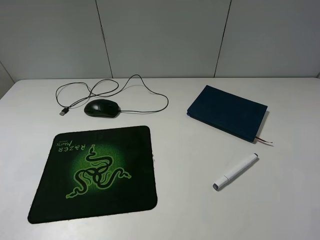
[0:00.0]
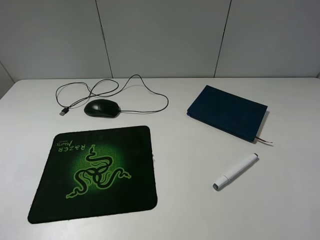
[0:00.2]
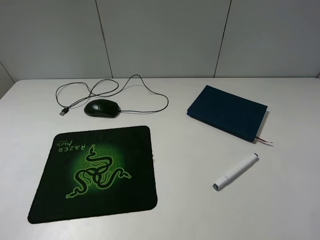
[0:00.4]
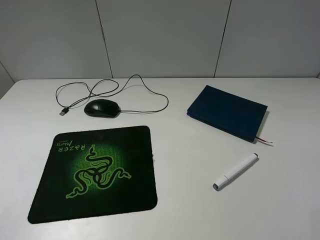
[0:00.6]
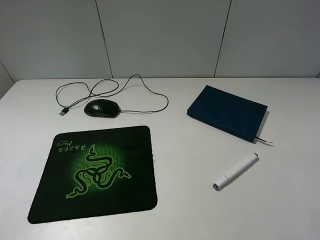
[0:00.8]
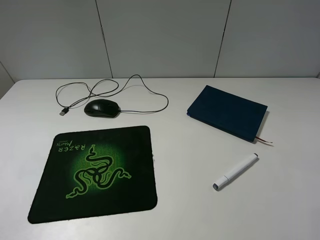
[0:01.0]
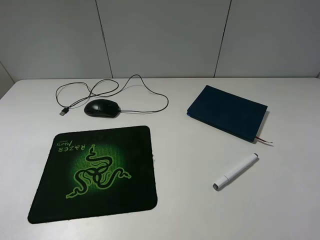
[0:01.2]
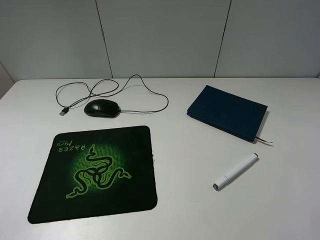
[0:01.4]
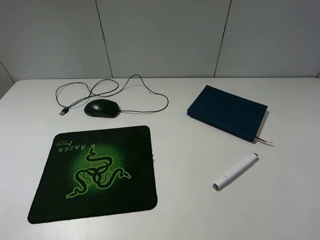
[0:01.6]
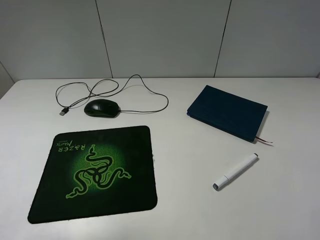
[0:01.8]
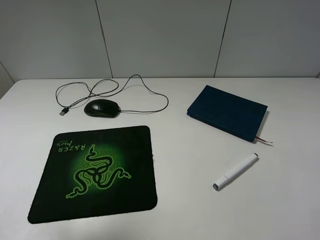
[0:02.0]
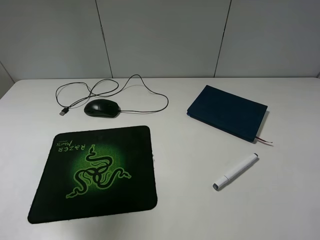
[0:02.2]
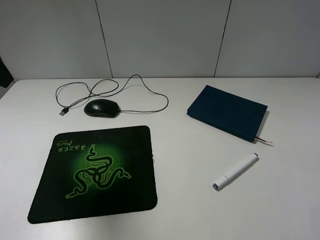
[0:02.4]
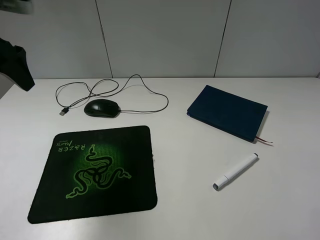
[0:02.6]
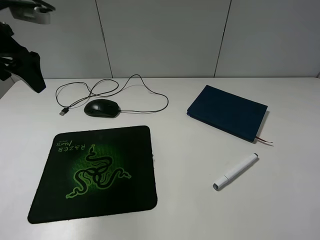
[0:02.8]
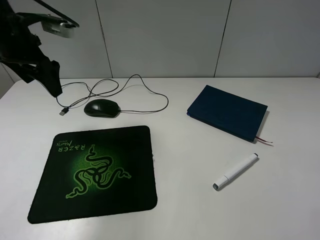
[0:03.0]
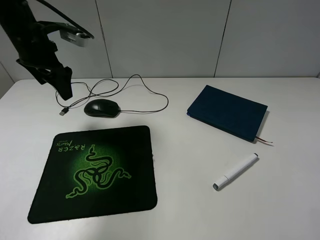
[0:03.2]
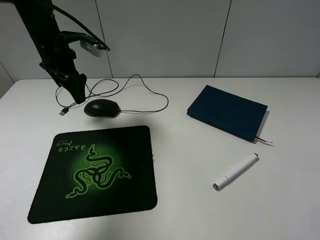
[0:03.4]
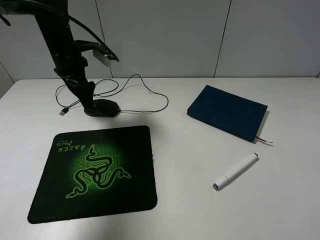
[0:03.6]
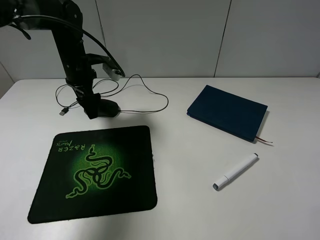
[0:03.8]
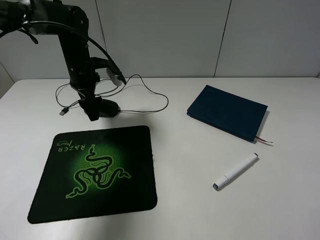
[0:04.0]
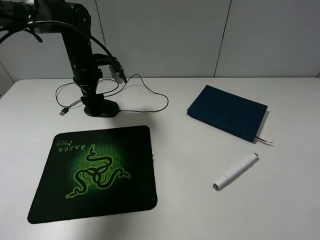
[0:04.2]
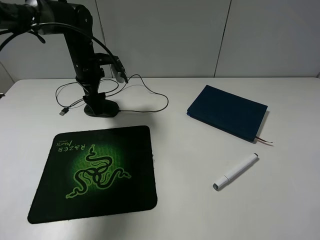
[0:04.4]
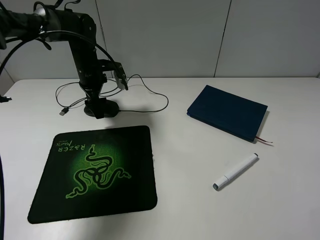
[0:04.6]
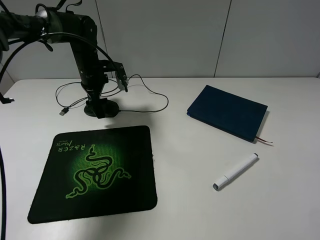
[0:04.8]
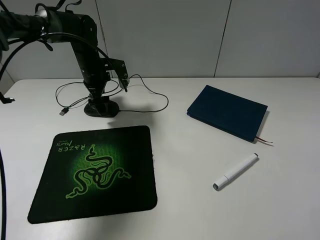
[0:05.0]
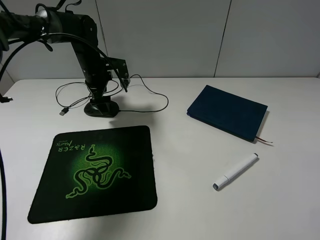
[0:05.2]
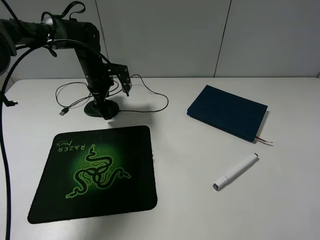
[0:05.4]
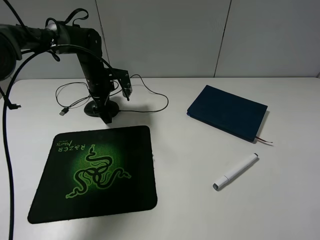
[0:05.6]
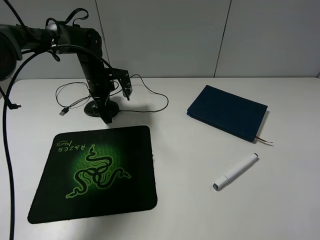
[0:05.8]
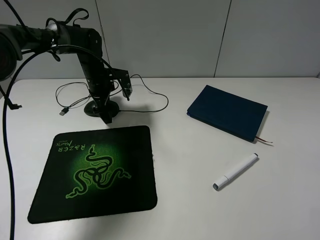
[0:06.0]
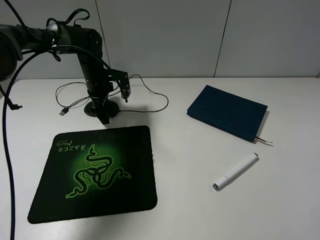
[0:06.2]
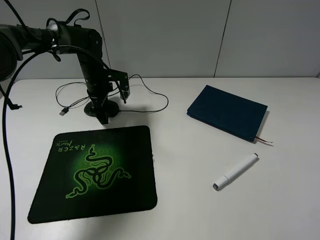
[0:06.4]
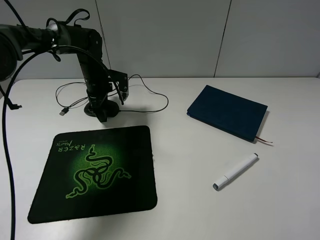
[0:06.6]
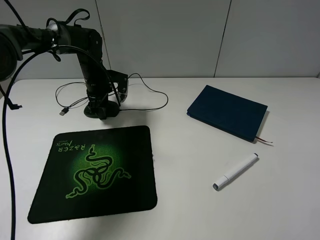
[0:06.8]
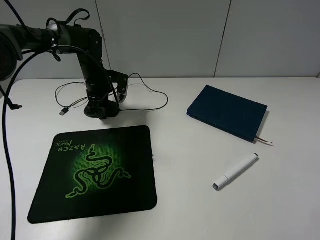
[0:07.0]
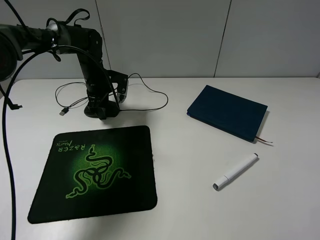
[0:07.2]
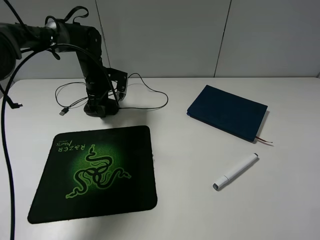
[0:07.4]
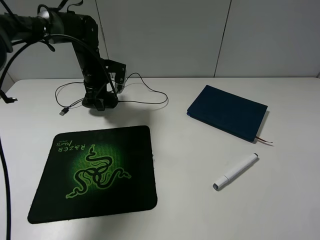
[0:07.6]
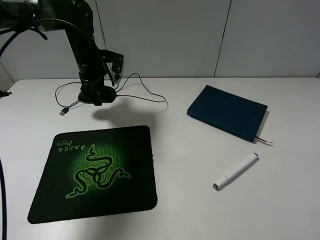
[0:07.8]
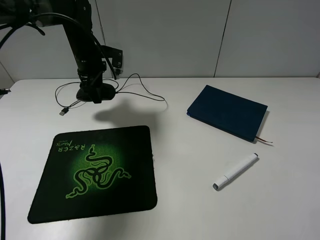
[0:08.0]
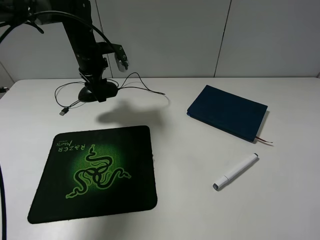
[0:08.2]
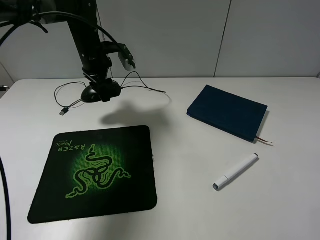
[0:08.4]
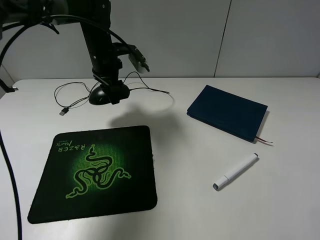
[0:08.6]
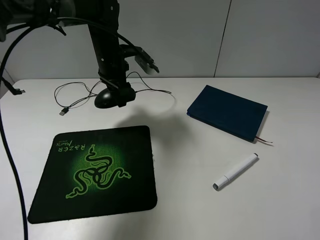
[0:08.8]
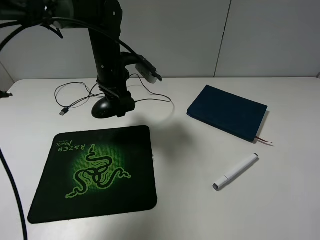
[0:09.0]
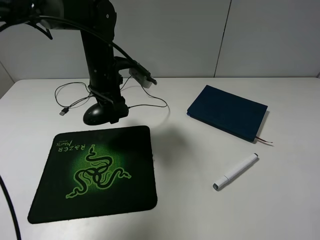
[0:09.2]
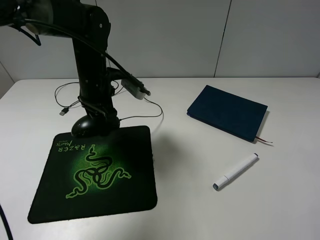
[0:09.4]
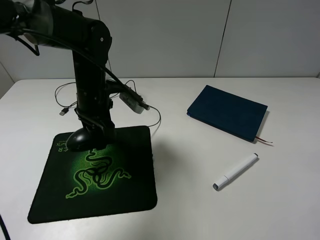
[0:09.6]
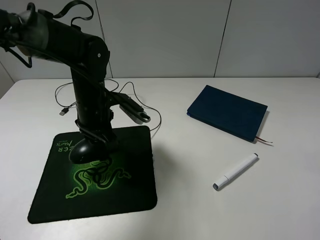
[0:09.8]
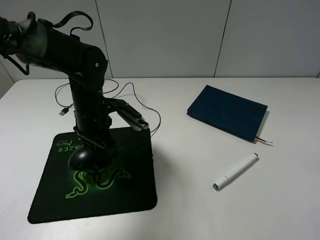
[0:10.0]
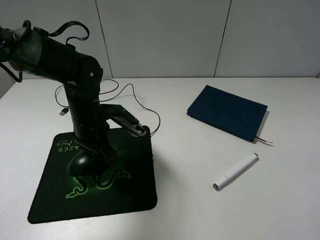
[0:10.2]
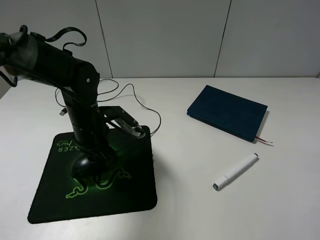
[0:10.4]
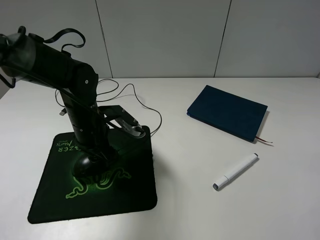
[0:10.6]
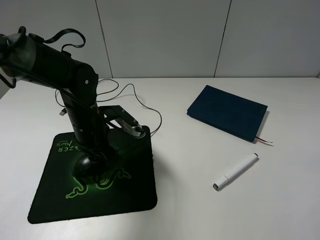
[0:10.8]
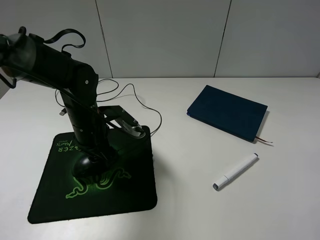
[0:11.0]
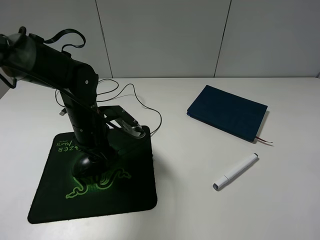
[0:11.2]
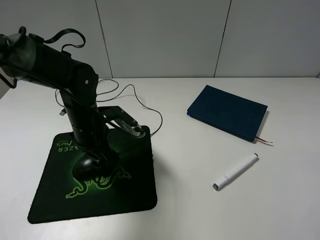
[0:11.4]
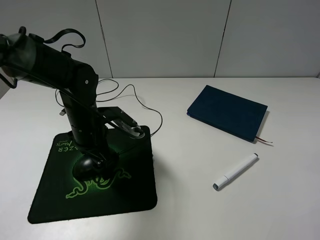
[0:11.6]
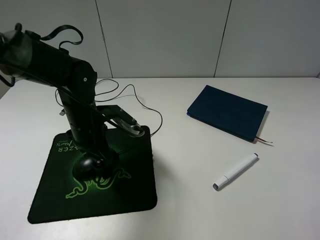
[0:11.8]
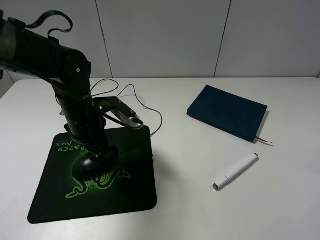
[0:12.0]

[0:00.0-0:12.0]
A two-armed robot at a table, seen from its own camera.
Step, 0:00.0 to 0:07.2: Grasp the mouse with the left gripper.
Step, 0:07.4 to 0:12.0: Place the mouse on the mouse pad with the left gripper.
0:01.6 to 0:03.0: The left gripper goes roughly 30 cm forward.
0:03.0 to 0:04.4: The left gripper goes about 15 cm downward, forward and to the right.
0:04.4 to 0:06.0: The left gripper is displaced downward by about 5 cm.
0:06.0 to 0:07.6: The left gripper closes its fingers.
0:07.6 to 0:09.0: The left gripper shifts some 10 cm backward and to the right.
0:09.0 to 0:10.4: The left gripper heads backward and downward, covering about 15 cm.
0:10.4 to 0:12.0: The left gripper opens.

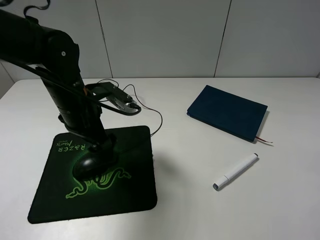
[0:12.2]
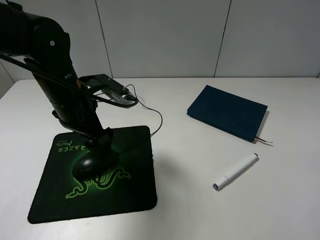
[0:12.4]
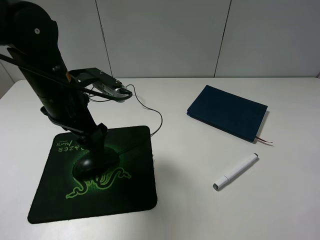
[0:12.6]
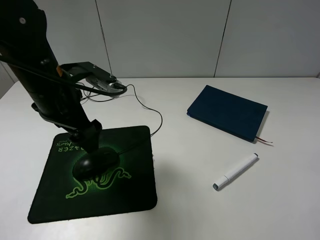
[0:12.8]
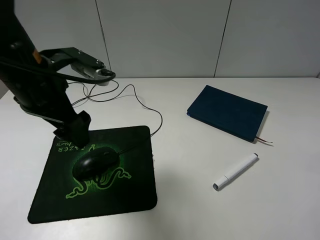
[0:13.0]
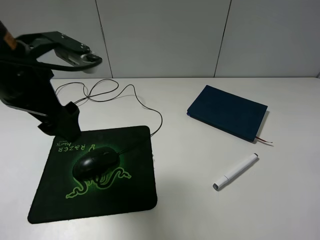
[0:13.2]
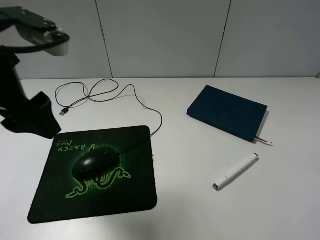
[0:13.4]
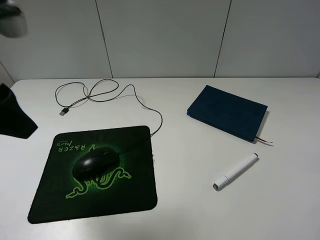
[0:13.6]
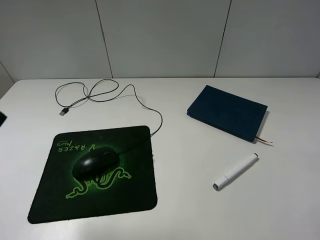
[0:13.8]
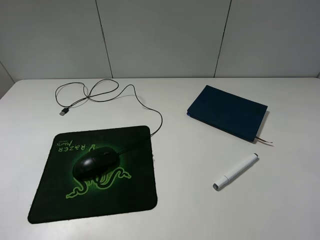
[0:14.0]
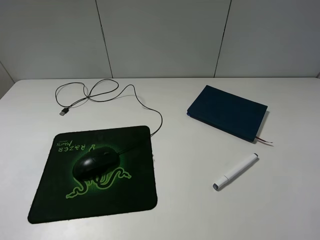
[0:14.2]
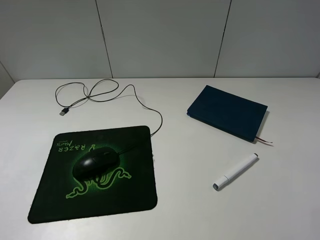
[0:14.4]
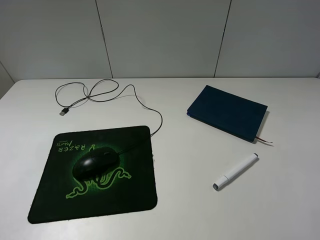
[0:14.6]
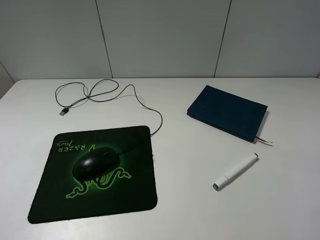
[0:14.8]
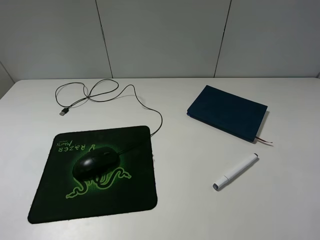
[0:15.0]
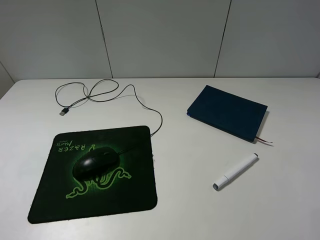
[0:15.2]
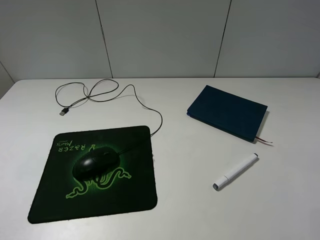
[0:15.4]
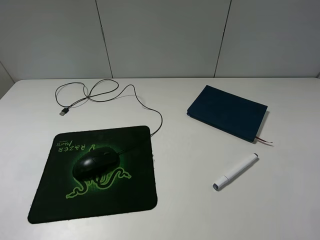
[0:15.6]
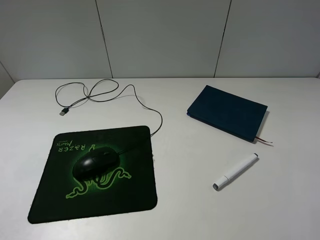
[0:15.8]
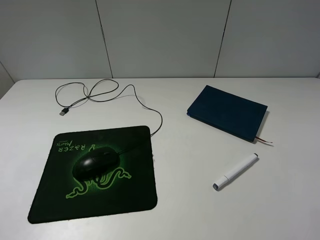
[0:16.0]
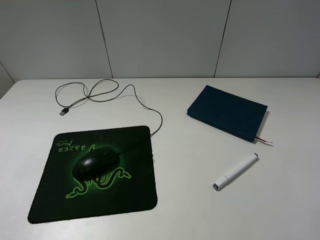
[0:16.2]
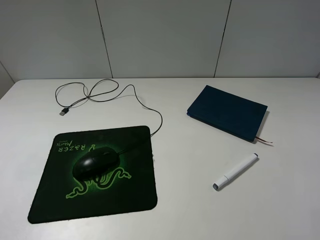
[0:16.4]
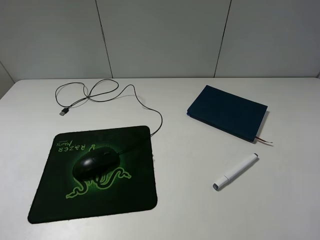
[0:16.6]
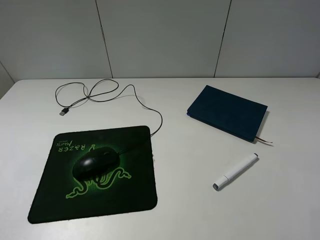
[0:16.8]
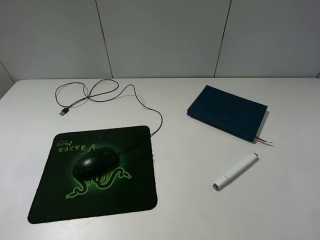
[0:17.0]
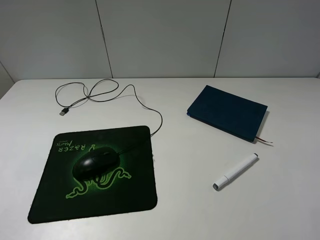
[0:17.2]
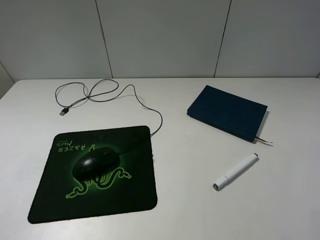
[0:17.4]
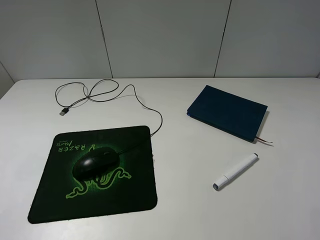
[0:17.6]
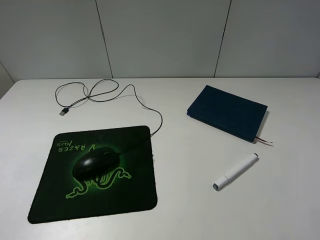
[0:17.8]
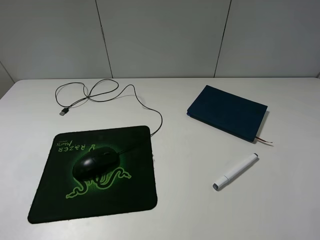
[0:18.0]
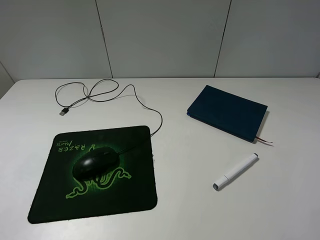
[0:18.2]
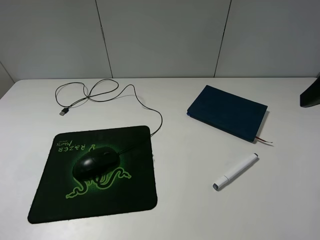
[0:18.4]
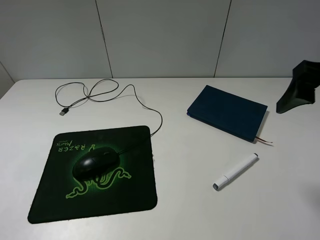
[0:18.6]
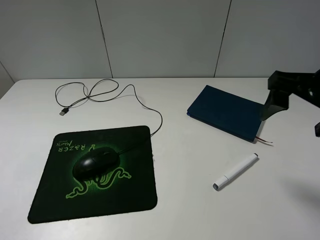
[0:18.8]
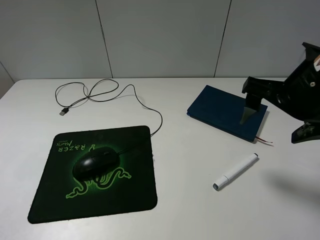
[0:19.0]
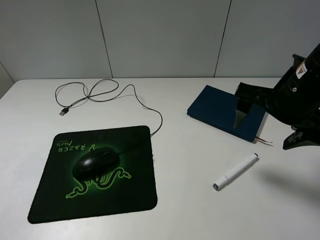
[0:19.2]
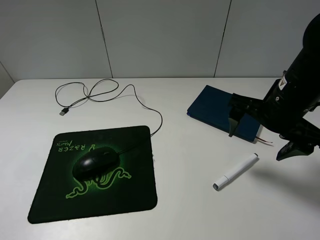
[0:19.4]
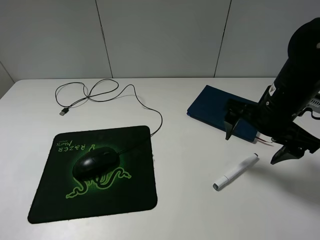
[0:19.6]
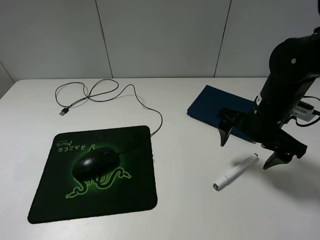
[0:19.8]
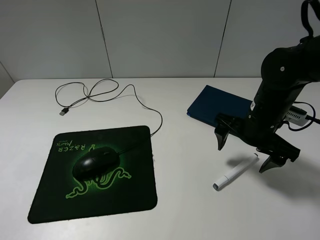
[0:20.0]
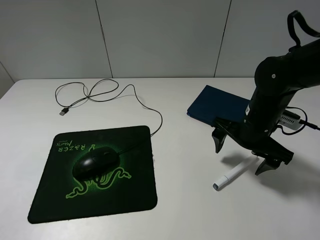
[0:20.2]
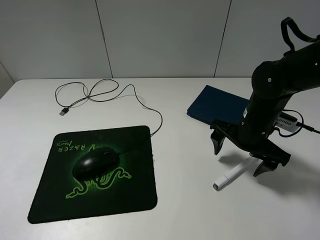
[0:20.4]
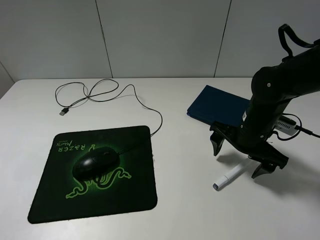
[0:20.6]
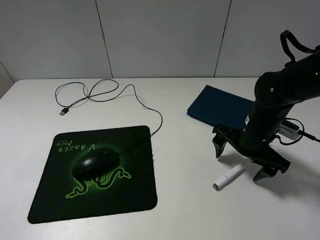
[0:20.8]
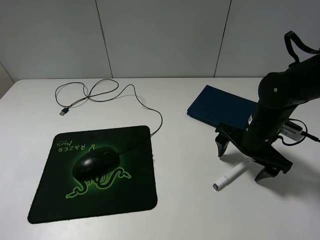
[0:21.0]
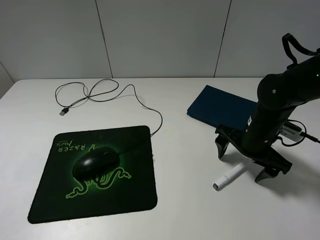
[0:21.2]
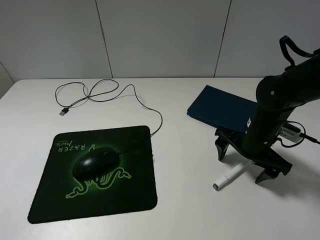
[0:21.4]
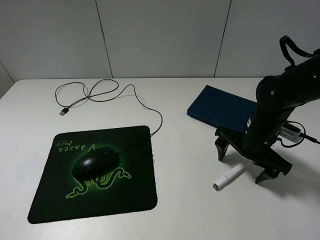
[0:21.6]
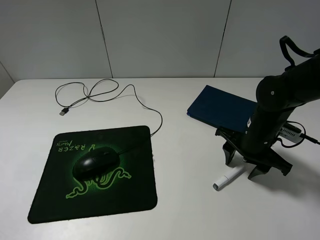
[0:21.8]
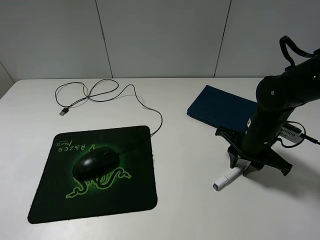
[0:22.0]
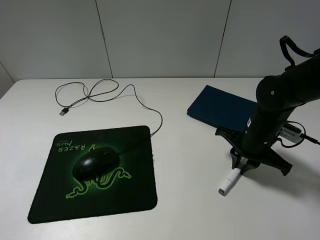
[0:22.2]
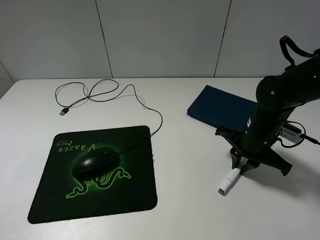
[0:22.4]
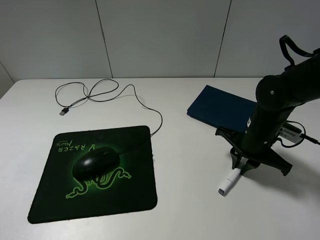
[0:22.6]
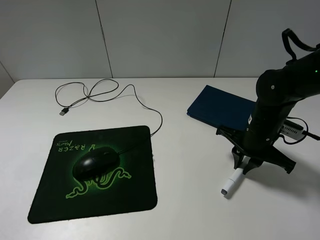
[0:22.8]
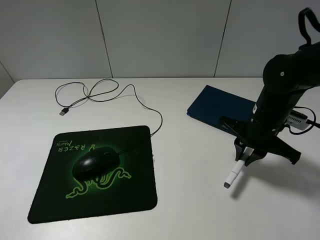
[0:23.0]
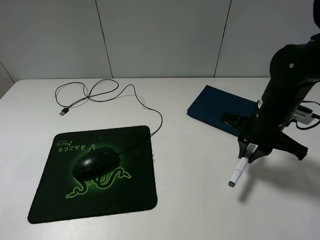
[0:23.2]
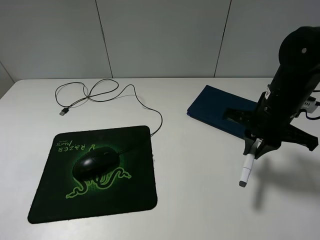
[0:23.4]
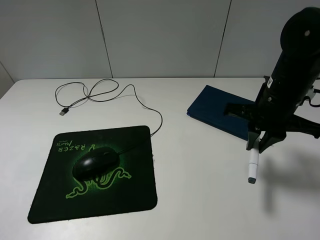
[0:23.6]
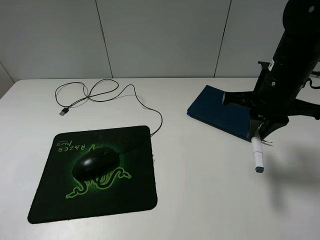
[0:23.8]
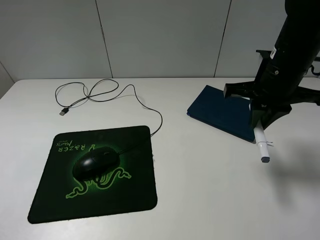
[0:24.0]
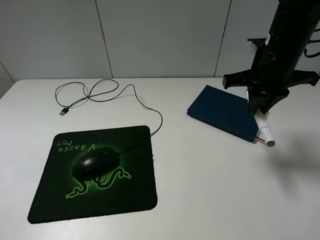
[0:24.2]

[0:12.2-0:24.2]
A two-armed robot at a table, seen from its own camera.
Step, 0:12.2 to 0:22.4: Grasp the marker with the right gripper.
0:12.2 to 0:13.8: The left gripper heads upward, backward and to the left, covering roughly 25 cm.
0:13.8 to 0:15.2: The left gripper is displaced backward, downward and to the left by some 15 cm.
0:15.2 to 0:16.6: Neither gripper changes place.
0:18.2 to 0:19.8: The right gripper heads downward, forward and to the left, covering approximately 25 cm.
0:19.8 to 0:21.2: The right gripper moves downward, some 5 cm.
0:21.2 to 0:22.6: The right gripper closes up.
0:22.6 to 0:24.2: The right gripper heads upward, covering approximately 15 cm.
